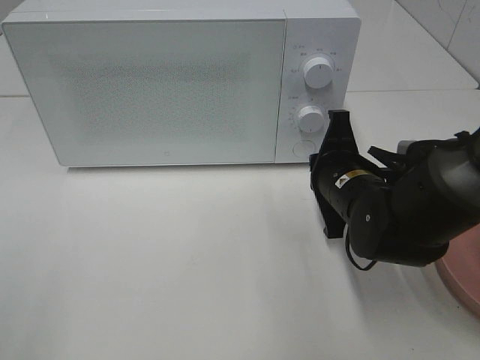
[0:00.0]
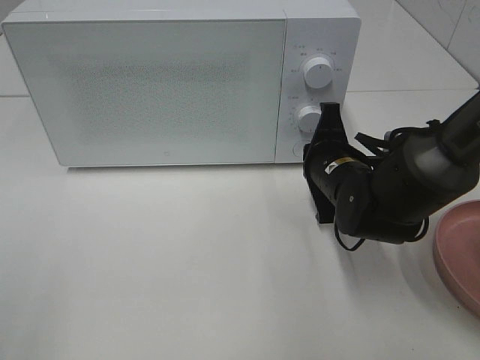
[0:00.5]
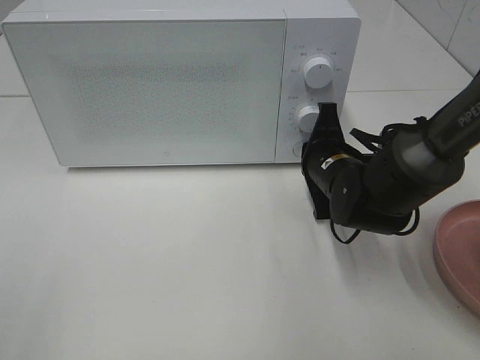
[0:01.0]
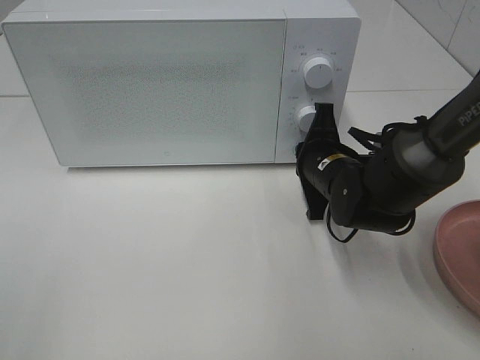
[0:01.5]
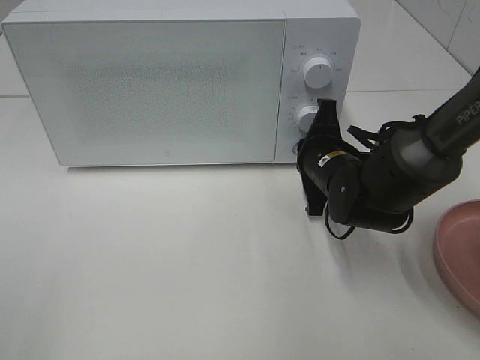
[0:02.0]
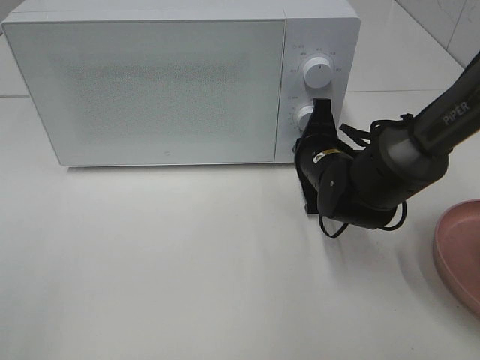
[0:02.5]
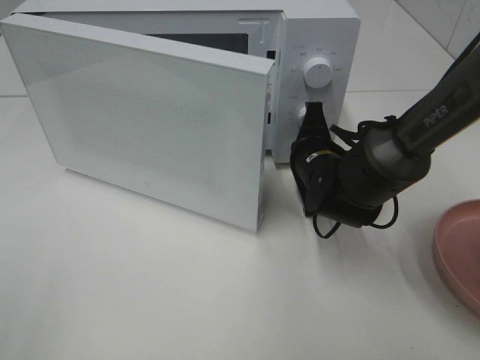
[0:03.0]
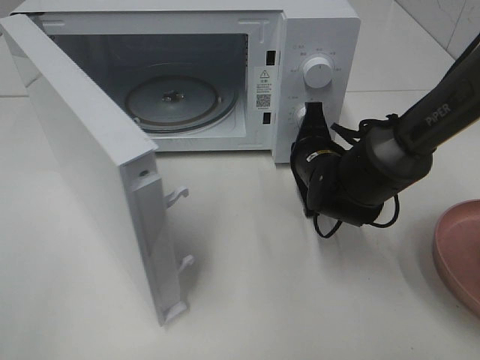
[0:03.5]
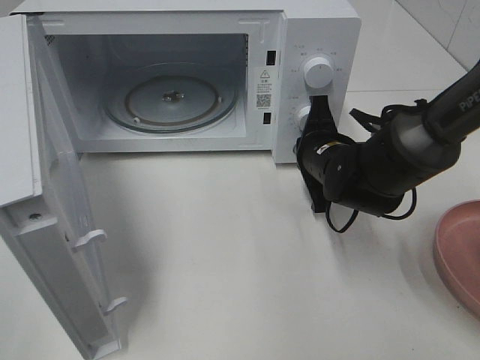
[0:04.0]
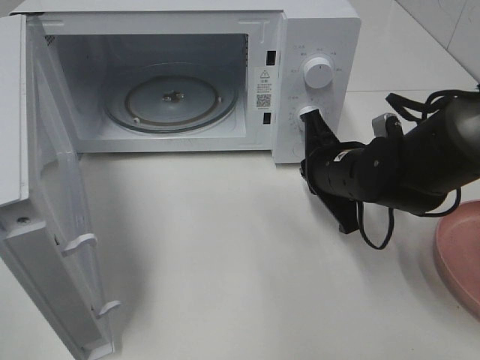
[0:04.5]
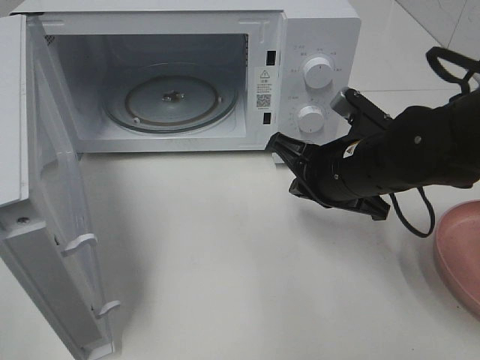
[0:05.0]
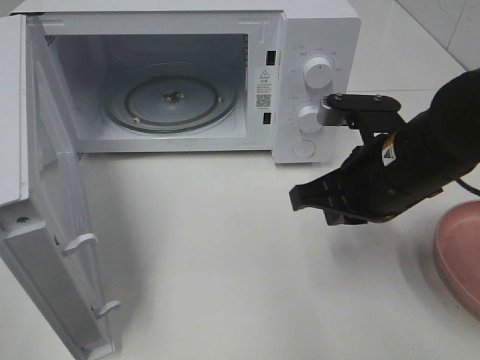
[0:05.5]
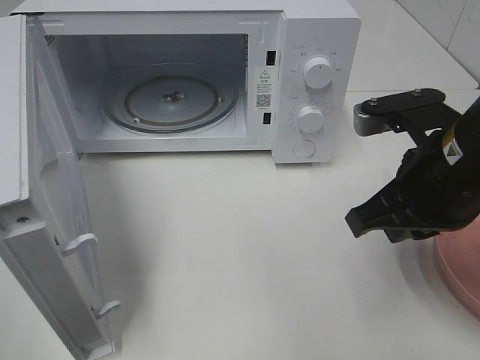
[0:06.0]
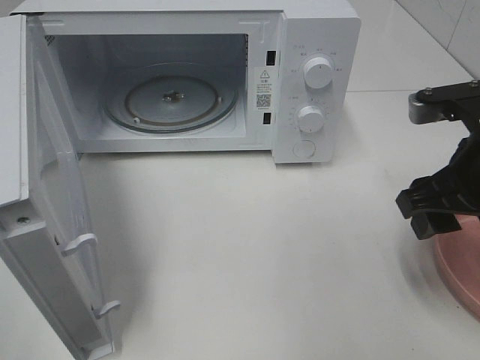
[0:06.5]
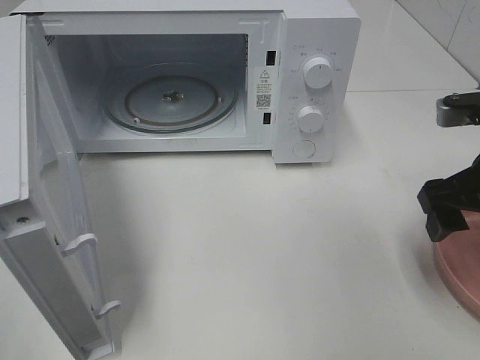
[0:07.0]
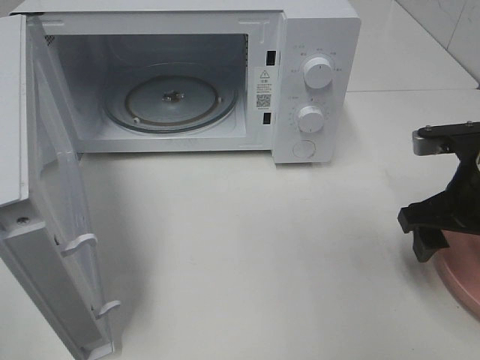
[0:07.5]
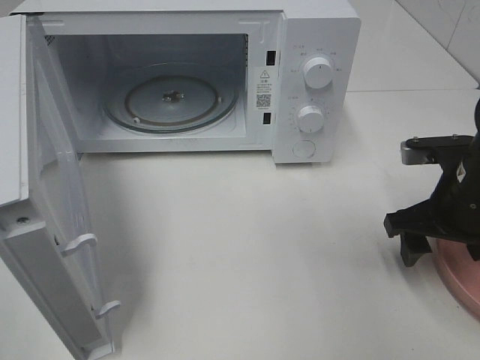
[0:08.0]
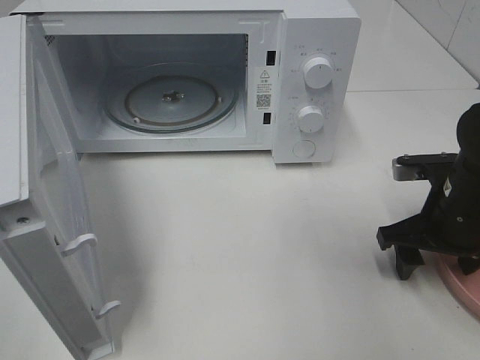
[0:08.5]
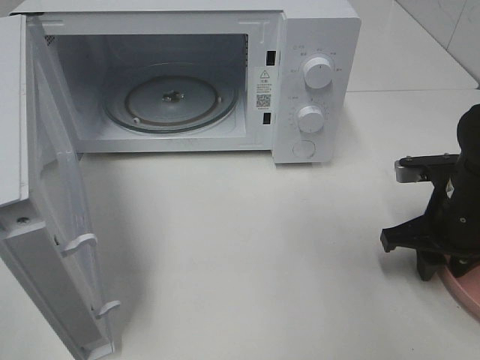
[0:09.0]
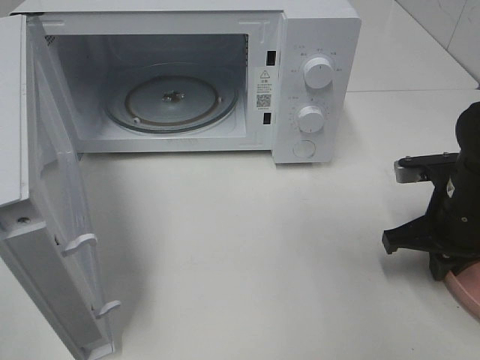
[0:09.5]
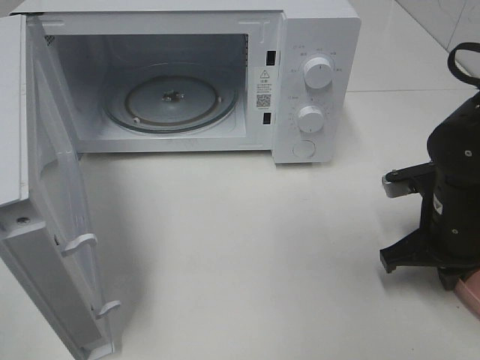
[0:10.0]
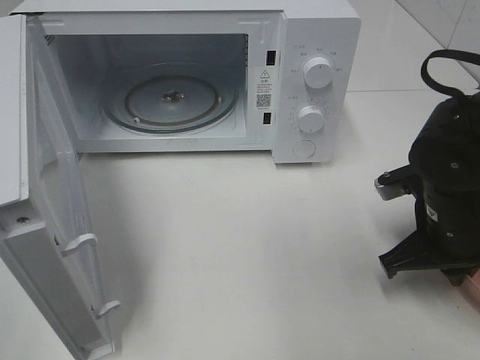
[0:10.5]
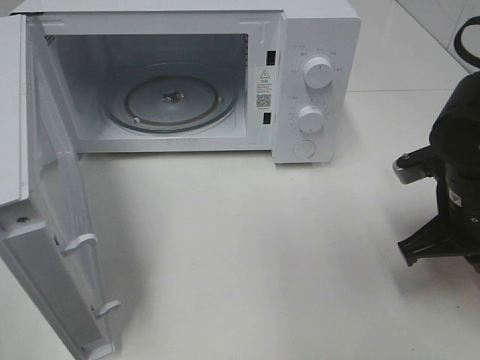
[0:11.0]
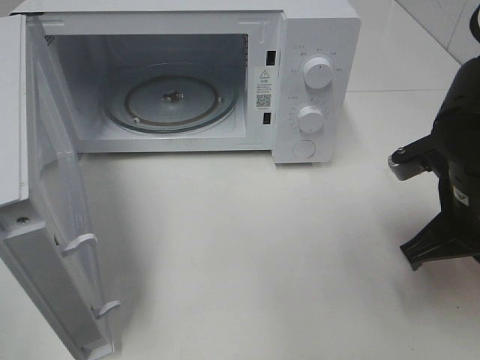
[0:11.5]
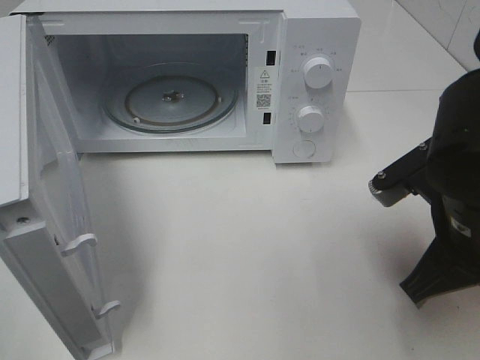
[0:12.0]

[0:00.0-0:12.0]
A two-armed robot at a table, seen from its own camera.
Task of the whole recording: Heat the burger.
Step, 0:00.0 to 0:04.0: Right hand: press the switch.
Step, 0:04.5 to 0:09.5: Right hand: grab the plate with the hamburger.
0:00.0 to 0:02.0: The right gripper is displaced forward by approximately 5 cm.
0:04.0 to 0:06.0: The right gripper travels backward and upward by approximately 20 cm.
0:06.0 to 0:08.0: The right gripper shifts about 10 cm downward and to the right, and opens its fingers.
0:08.0 to 0:10.0: The right gripper closes up.
0:10.0 to 0:12.0: The right gripper goes approximately 10 cm upward and backward.

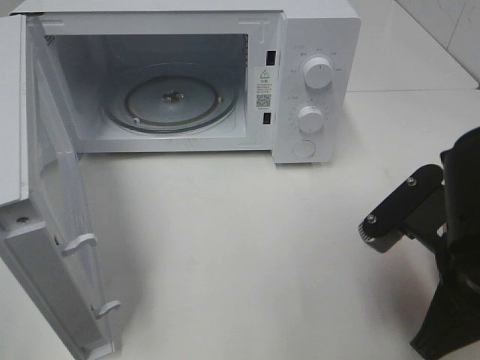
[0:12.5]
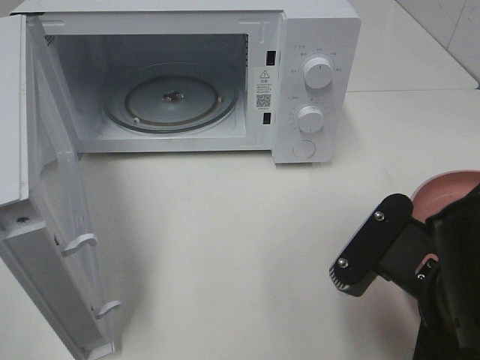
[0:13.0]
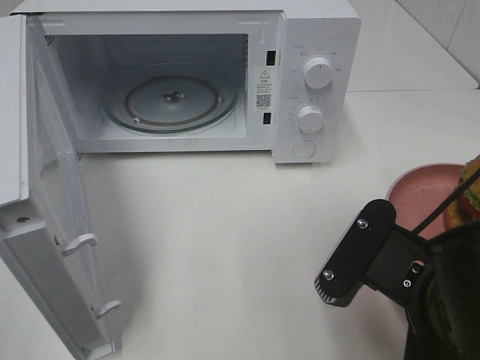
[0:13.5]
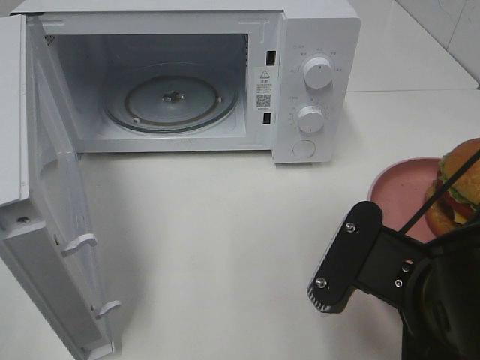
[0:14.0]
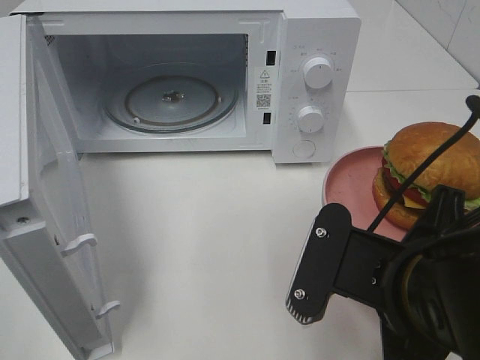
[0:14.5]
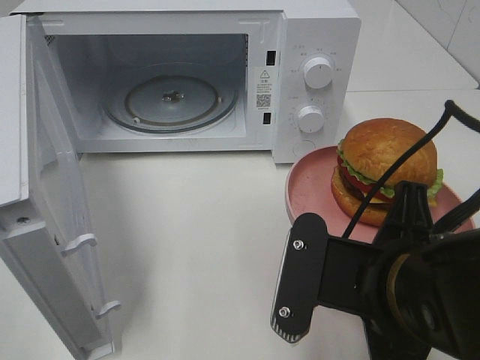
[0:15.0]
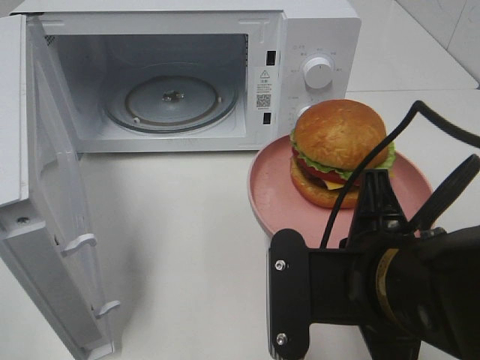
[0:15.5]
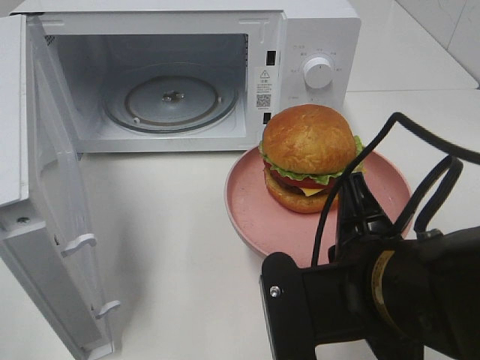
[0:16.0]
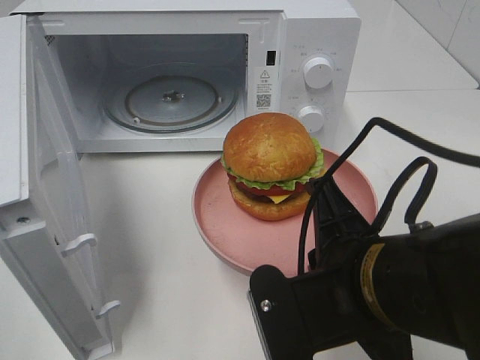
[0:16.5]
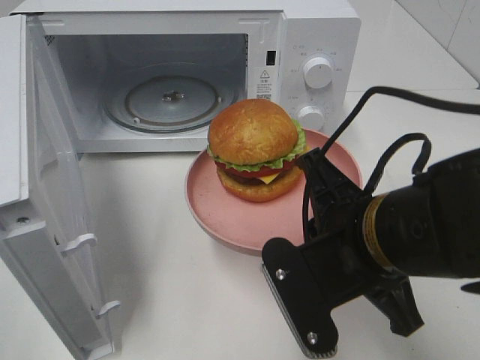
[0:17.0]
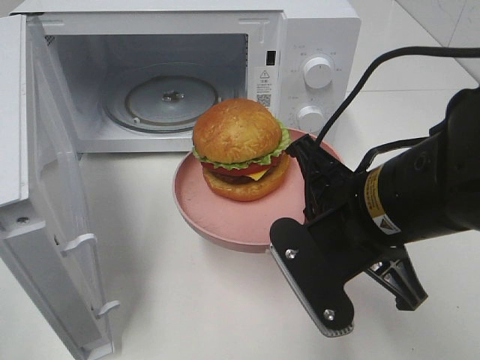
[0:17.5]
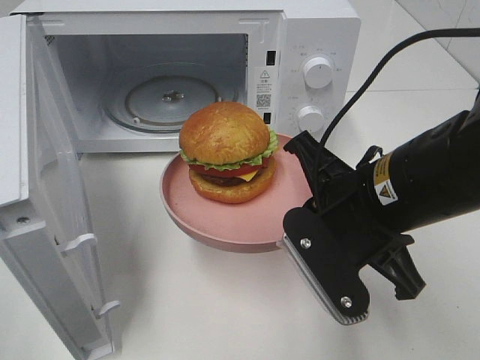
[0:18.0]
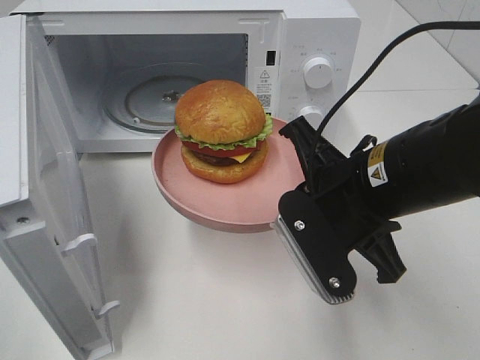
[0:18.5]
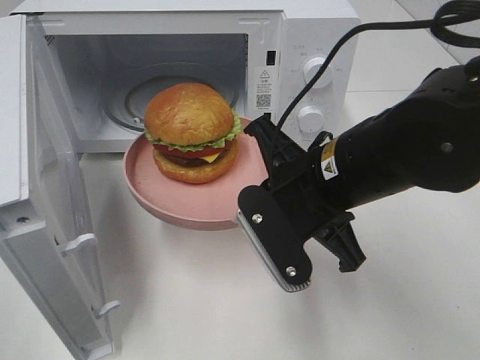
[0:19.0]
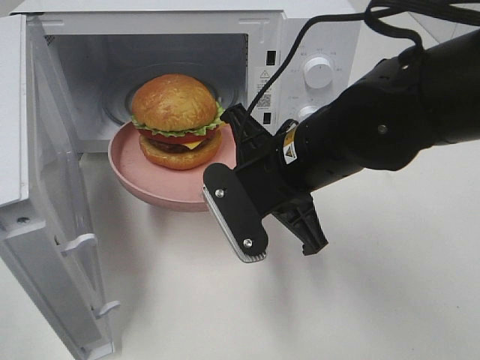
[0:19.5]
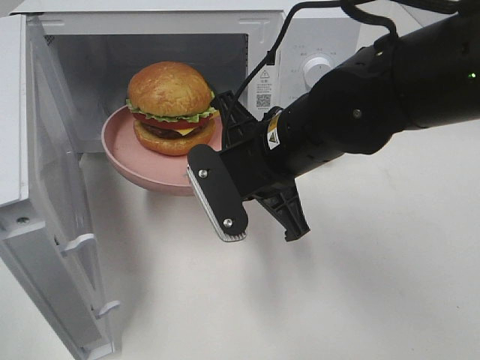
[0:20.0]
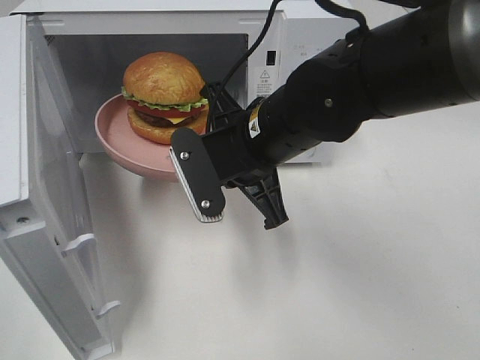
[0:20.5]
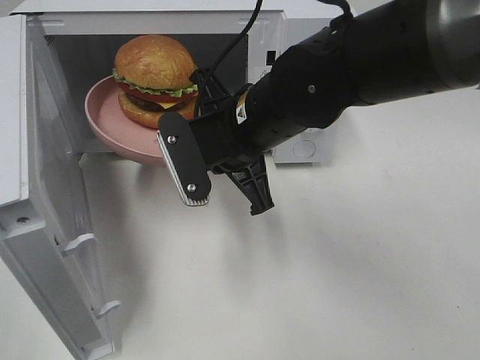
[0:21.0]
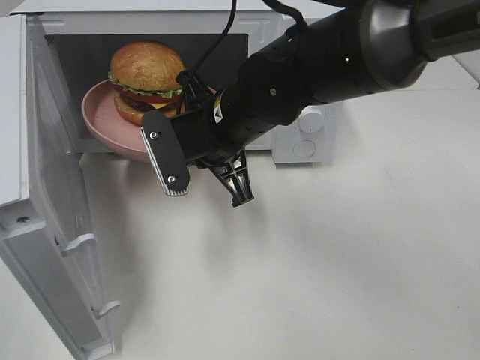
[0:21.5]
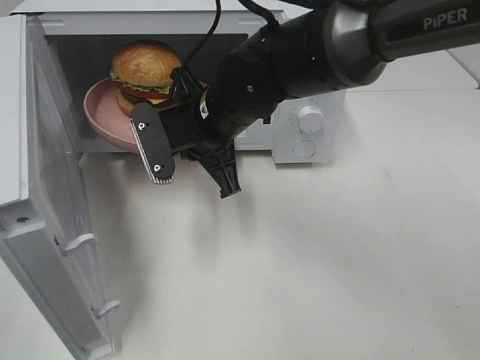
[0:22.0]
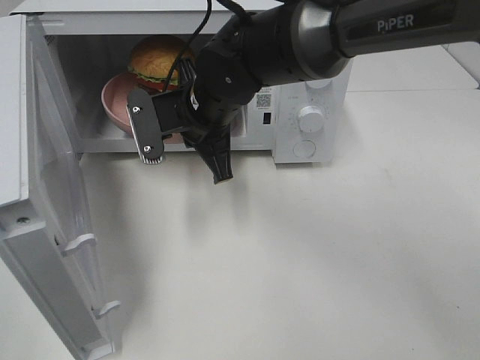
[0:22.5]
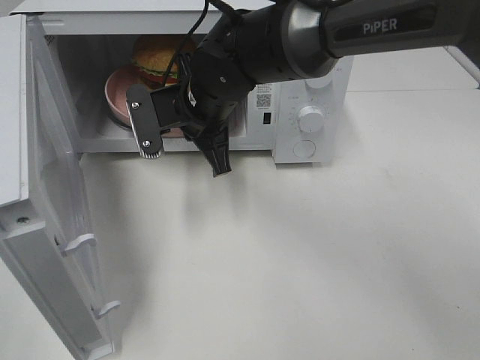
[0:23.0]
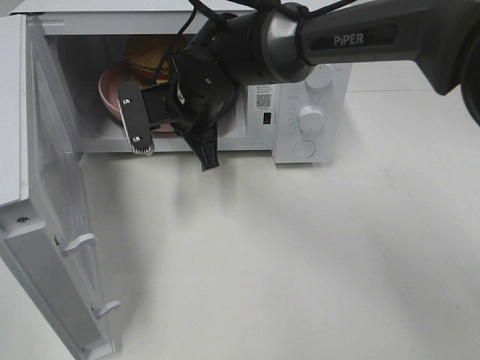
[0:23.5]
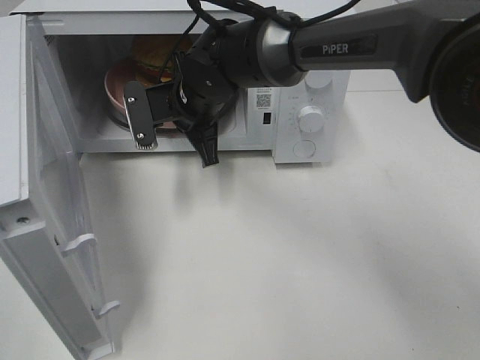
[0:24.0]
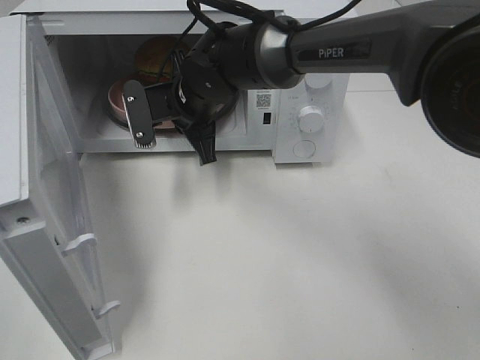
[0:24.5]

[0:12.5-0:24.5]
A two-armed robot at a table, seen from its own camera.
Task of the whole recording: Heat the burger.
0:12.5 to 0:14.5: The right gripper changes place by roughly 5 cm.
0:16.5 to 0:18.5: The right gripper goes approximately 10 cm forward.
0:18.5 to 0:20.5: The right gripper travels to the left and forward by about 10 cm.
0:20.5 to 0:22.5: The right gripper moves forward and to the left, approximately 10 cm.
0:22.5 to 0:24.5: The right gripper shifts by about 5 cm.

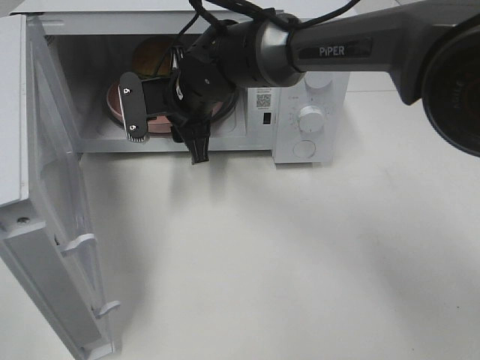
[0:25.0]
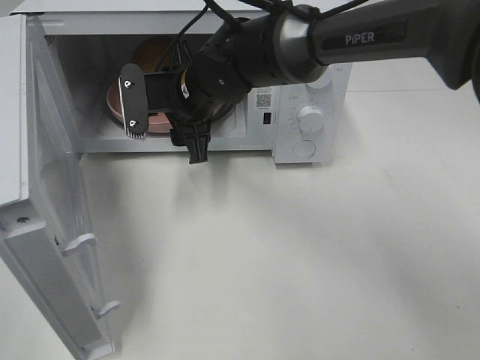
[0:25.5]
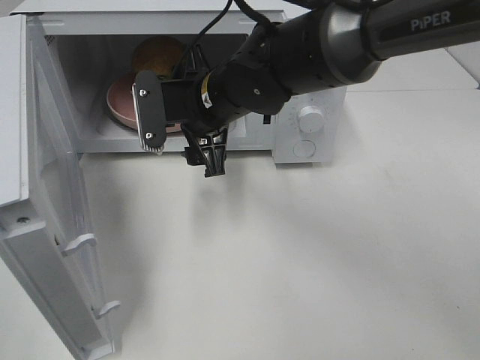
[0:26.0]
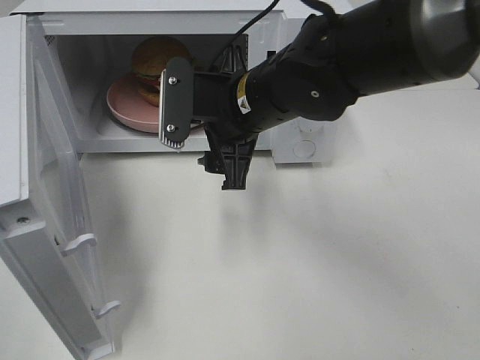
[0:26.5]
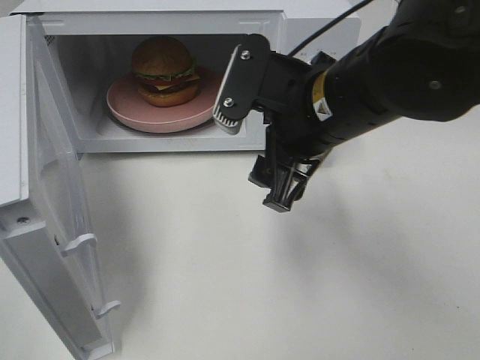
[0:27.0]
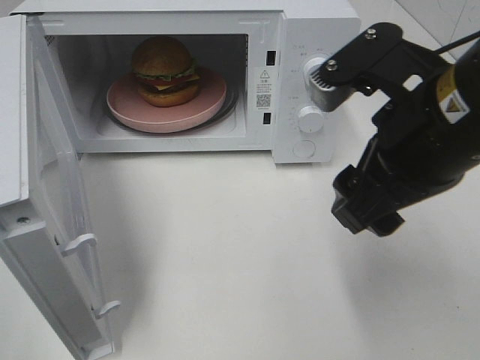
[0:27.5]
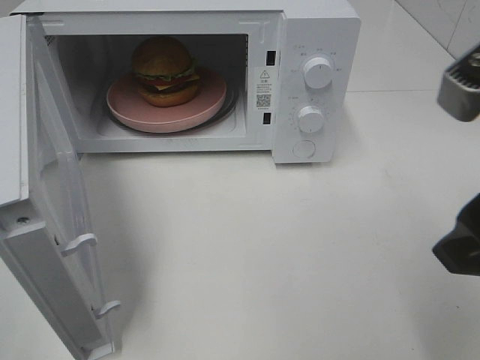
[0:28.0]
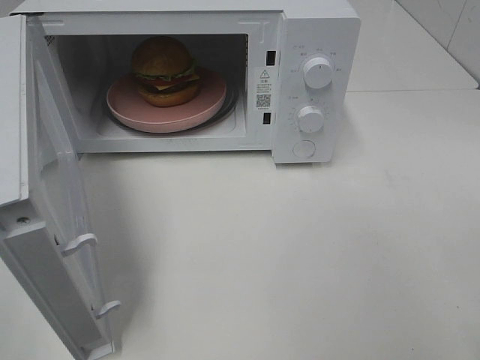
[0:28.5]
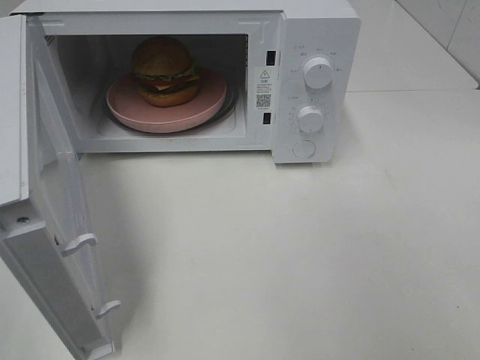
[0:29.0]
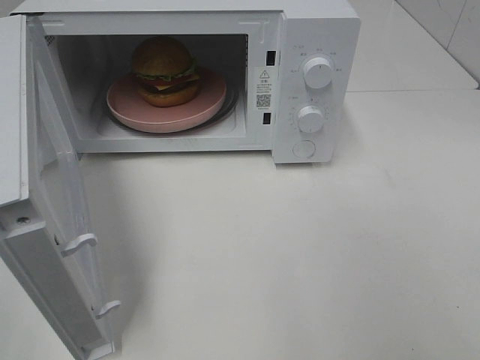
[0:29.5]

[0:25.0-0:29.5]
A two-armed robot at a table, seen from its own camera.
Task of the whole recording: Heat the burger.
0:25.0 to 0:27.0: The right gripper travels backward, to the right and upward by about 20 cm.
0:27.0 to 0:29.5: The right gripper heads backward and to the right, covering roughly 30 cm.
